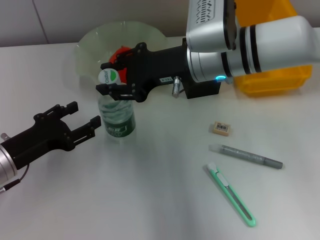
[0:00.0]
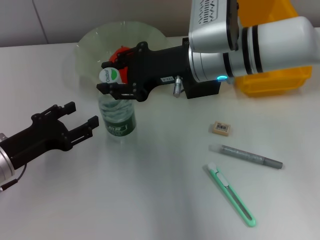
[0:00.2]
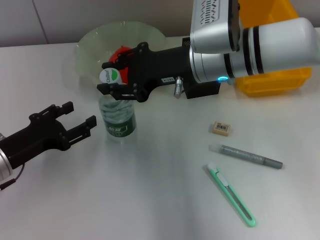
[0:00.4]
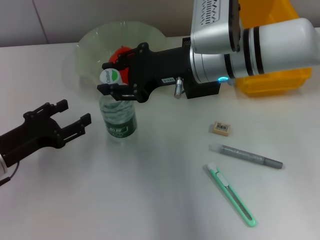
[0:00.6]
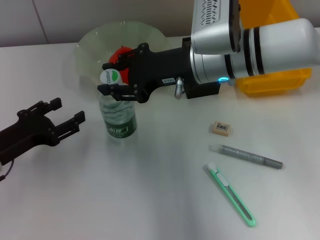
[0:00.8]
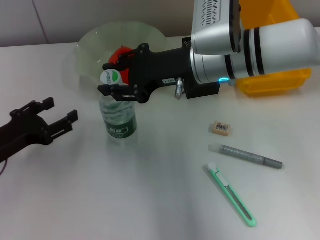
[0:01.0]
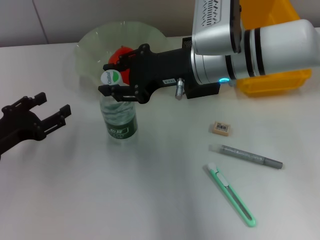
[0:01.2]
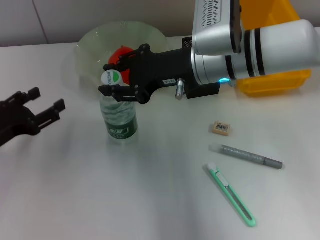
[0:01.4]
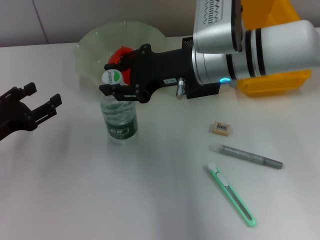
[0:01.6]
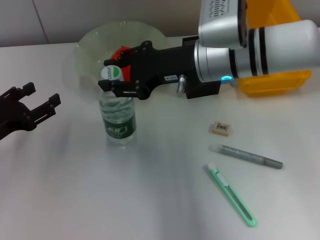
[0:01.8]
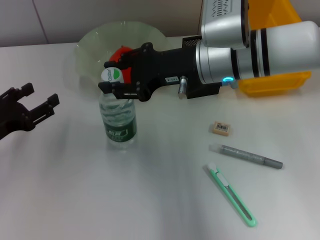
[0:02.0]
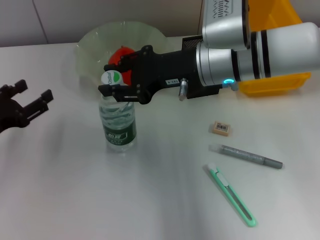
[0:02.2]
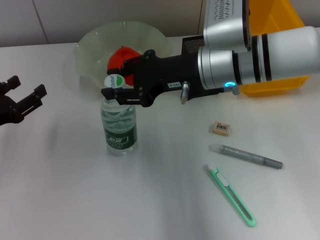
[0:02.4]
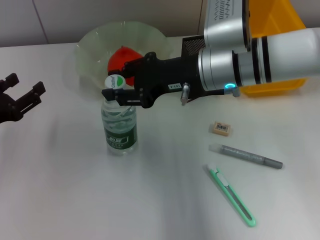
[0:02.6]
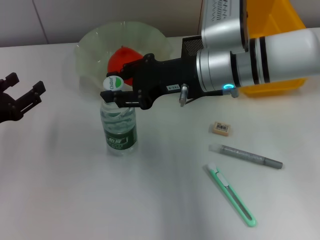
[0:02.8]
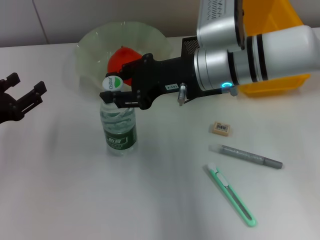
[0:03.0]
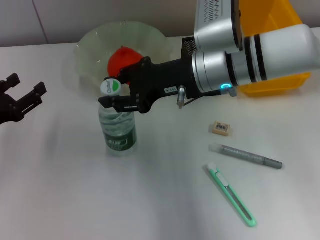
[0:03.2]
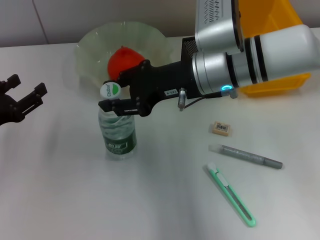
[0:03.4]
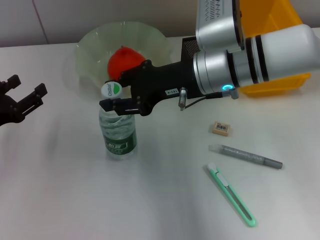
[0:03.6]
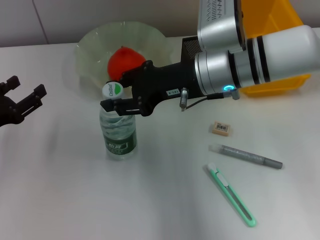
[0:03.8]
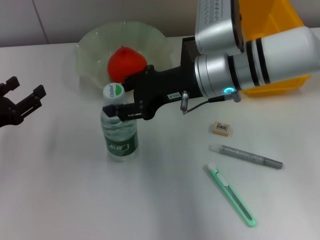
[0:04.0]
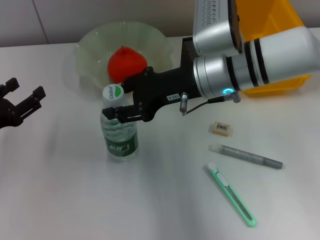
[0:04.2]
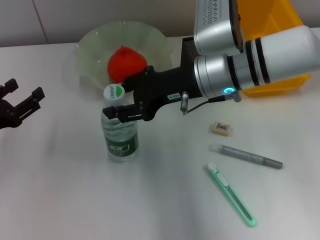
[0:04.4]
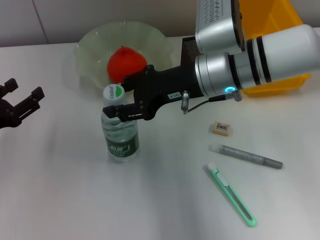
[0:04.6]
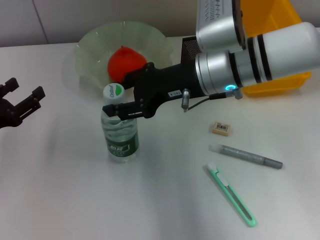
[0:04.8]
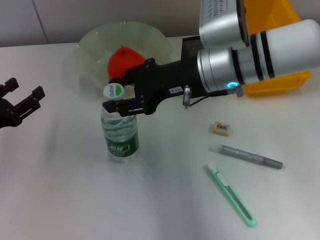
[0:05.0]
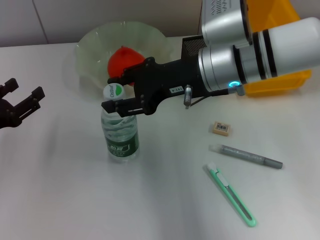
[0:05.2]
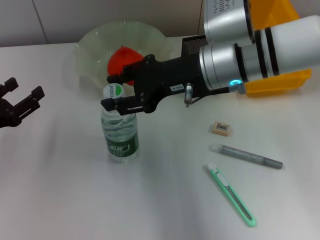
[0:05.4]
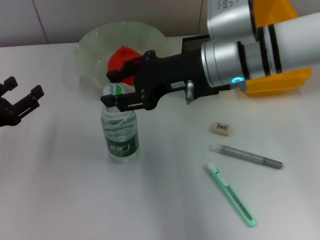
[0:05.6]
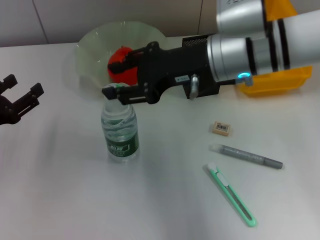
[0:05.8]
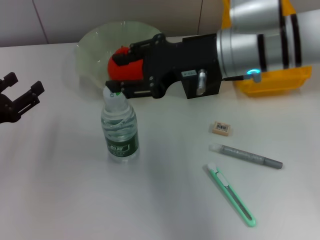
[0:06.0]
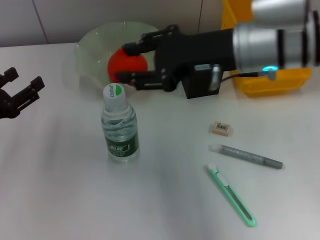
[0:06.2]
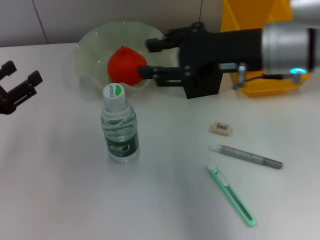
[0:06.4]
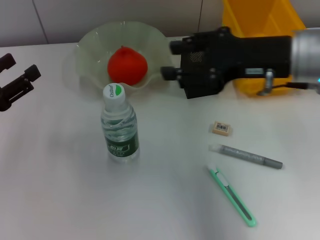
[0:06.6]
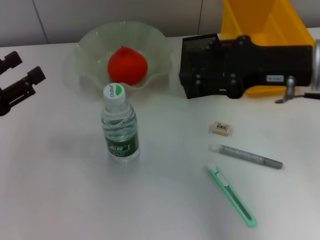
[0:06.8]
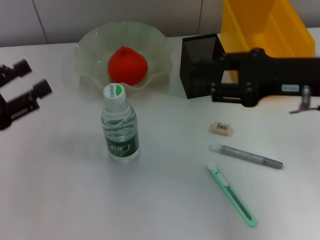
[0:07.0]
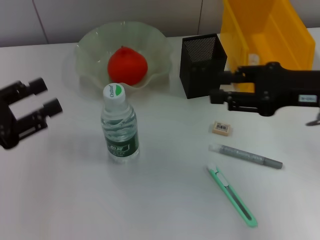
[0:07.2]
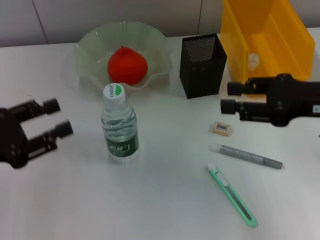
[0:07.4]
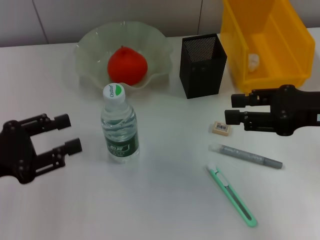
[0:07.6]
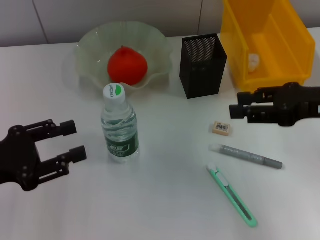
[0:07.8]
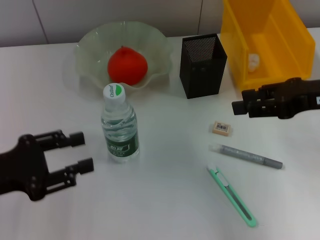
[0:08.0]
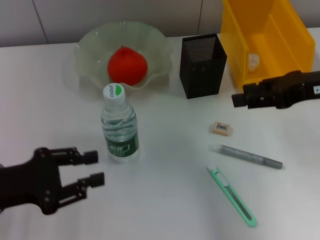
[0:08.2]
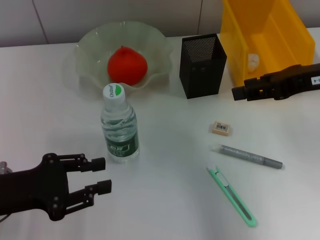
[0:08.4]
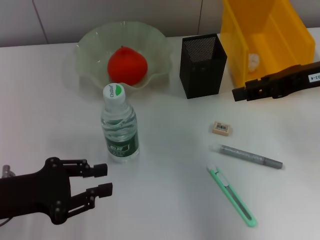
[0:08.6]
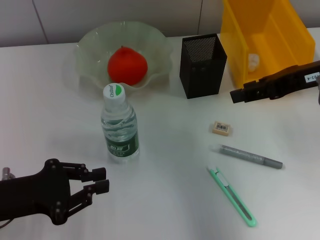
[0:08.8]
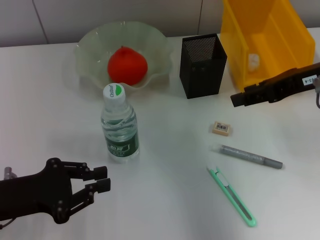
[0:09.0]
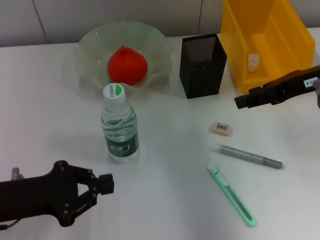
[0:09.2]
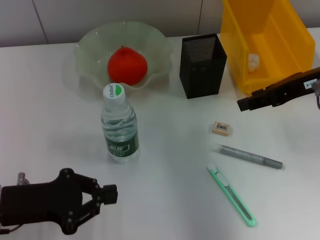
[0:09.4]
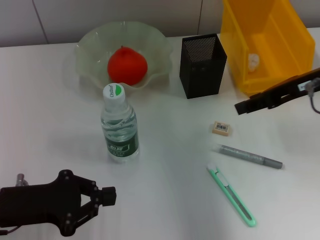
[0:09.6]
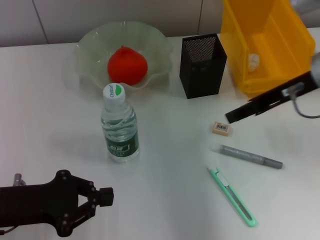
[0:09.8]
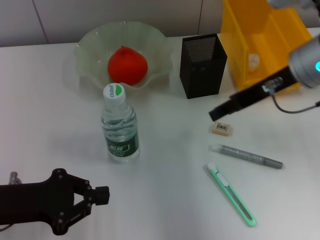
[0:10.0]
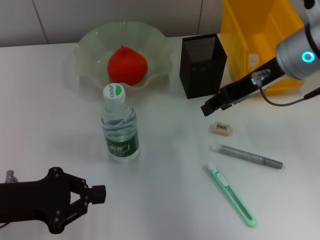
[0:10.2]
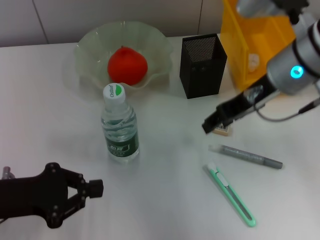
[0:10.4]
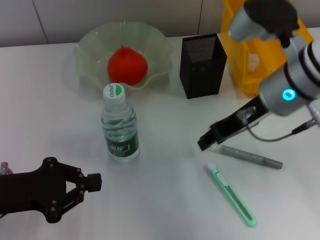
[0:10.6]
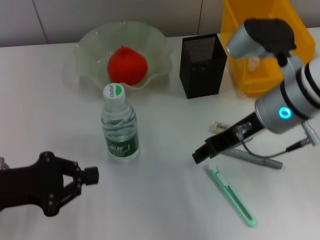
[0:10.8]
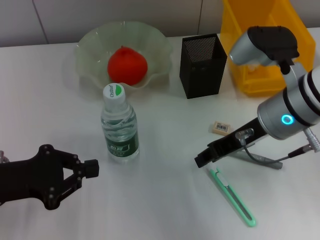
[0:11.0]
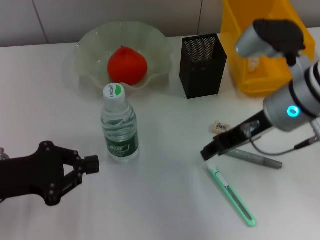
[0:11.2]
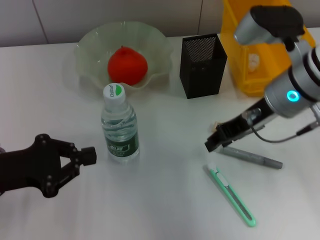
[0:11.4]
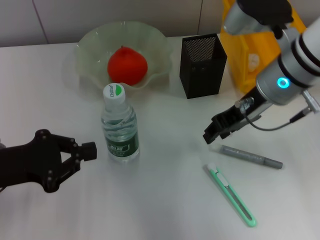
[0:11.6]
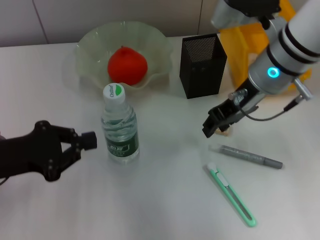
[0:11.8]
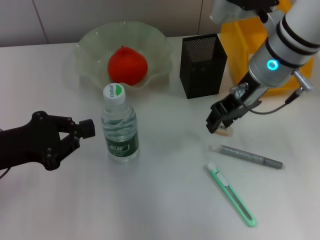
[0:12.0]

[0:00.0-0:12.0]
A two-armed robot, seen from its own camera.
Step, 0:00.2 to 0:05.4: Place the water bottle on the table with the right hand.
0:00.0 to 0:03.0: The grippers make only small movements.
0:03.0 to 0:04.4: Both grippers stay about where they are.
0:04.4 to 0:06.0: The right gripper changes place by about 5 cm.
0:06.0 to 0:07.6: The left gripper ends up about 5 cm from where it was; the right gripper moves to the right and backward, some 15 cm.
0:07.6 to 0:09.0: The right gripper is displaced forward by approximately 5 cm. Meanwhile the left gripper closes its fingers.
0:09.0 to 0:10.4: The right gripper travels to the left by approximately 10 cm.
0:10.4 to 0:12.0: The grippers move only a little.

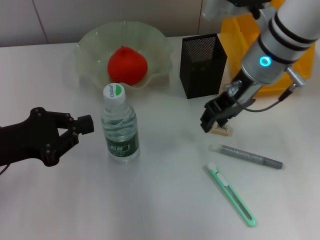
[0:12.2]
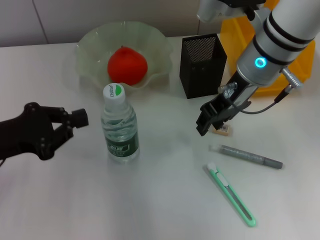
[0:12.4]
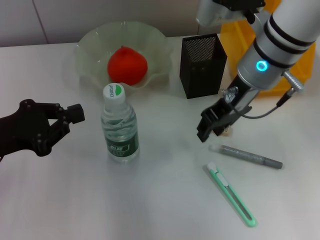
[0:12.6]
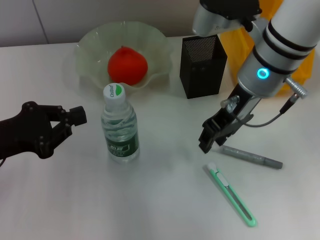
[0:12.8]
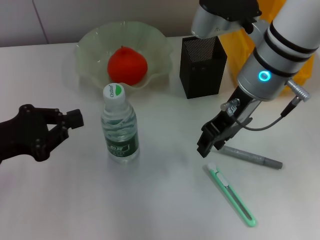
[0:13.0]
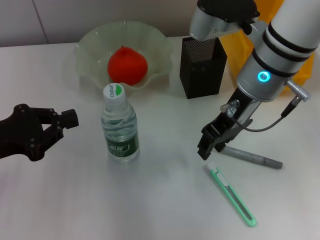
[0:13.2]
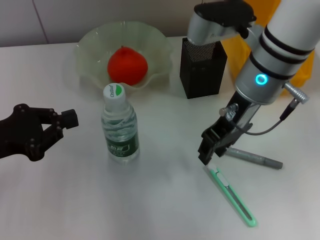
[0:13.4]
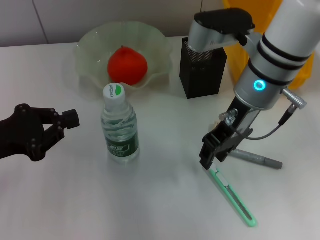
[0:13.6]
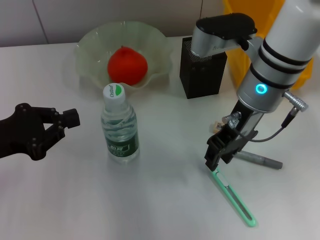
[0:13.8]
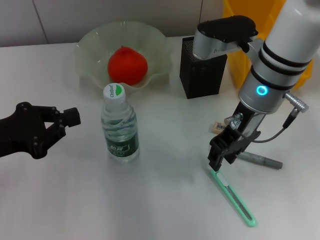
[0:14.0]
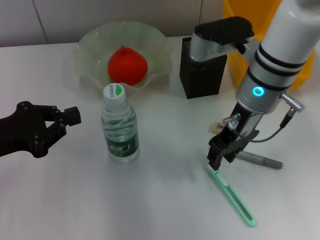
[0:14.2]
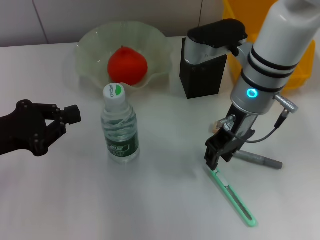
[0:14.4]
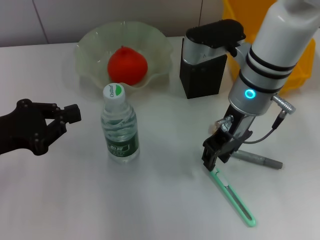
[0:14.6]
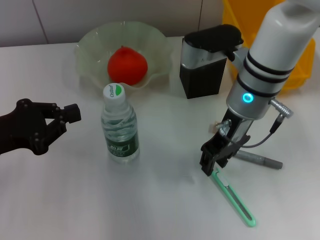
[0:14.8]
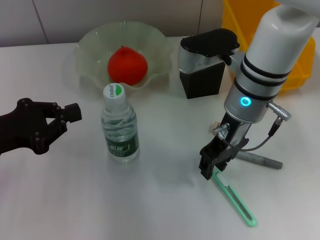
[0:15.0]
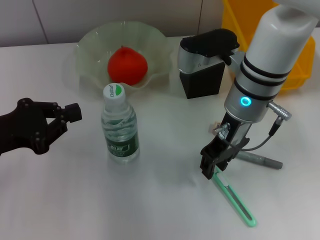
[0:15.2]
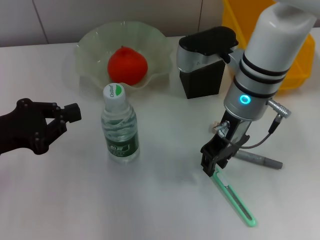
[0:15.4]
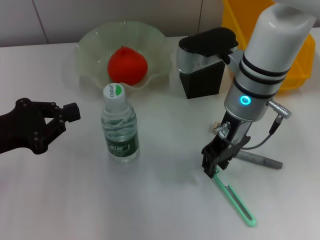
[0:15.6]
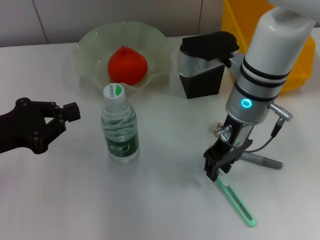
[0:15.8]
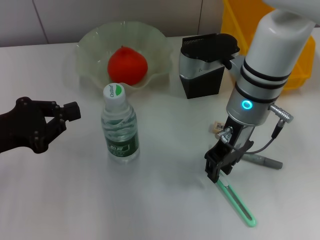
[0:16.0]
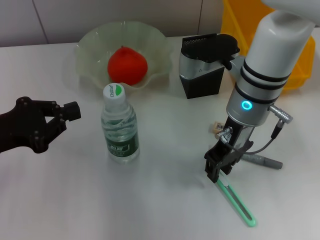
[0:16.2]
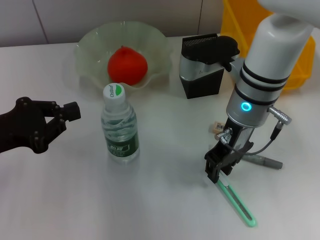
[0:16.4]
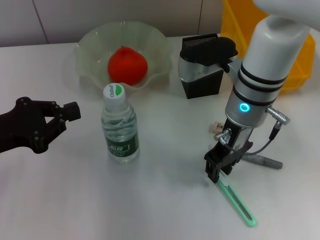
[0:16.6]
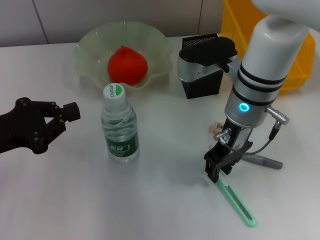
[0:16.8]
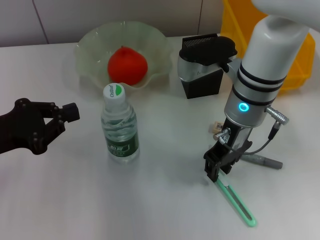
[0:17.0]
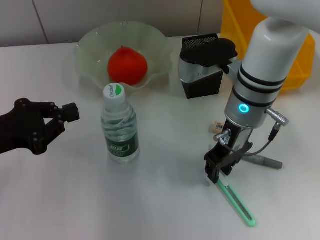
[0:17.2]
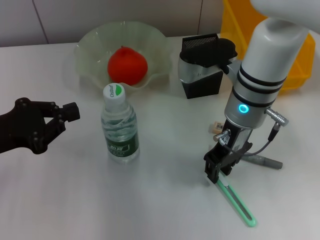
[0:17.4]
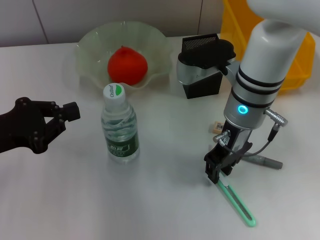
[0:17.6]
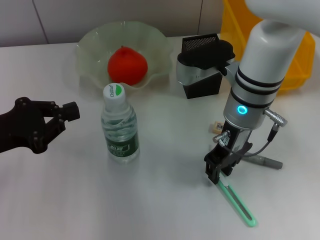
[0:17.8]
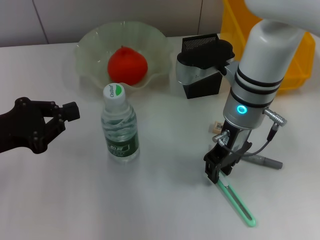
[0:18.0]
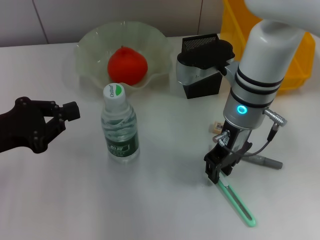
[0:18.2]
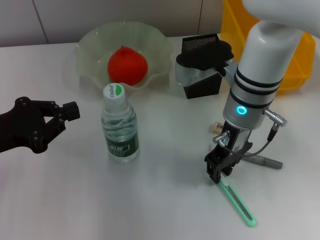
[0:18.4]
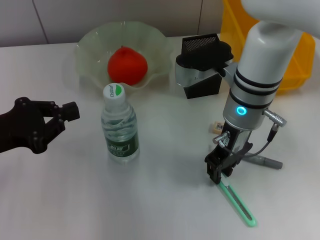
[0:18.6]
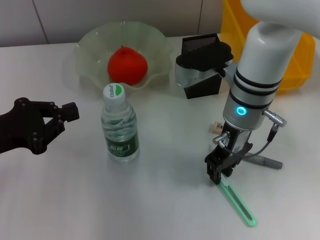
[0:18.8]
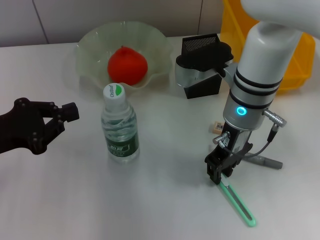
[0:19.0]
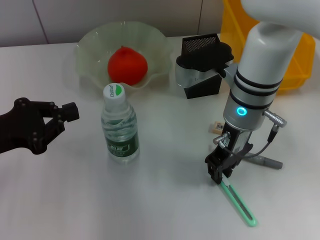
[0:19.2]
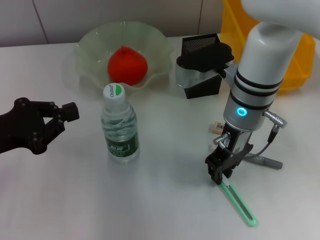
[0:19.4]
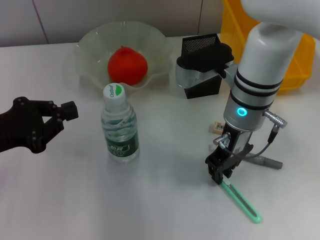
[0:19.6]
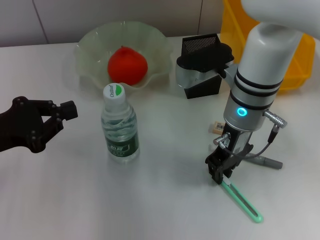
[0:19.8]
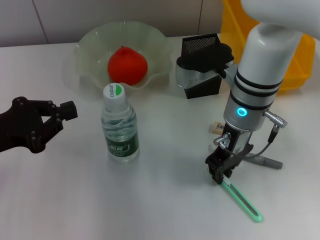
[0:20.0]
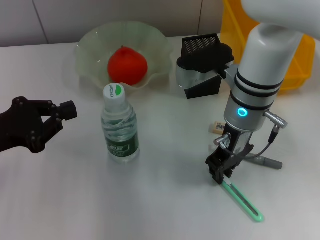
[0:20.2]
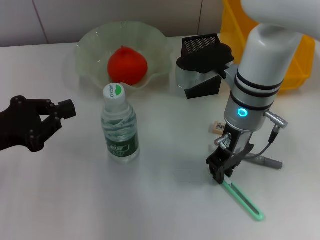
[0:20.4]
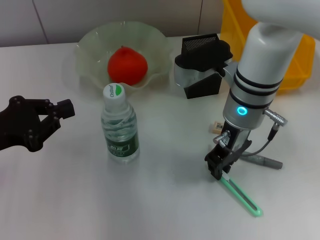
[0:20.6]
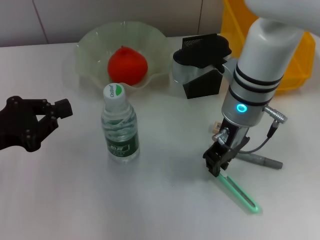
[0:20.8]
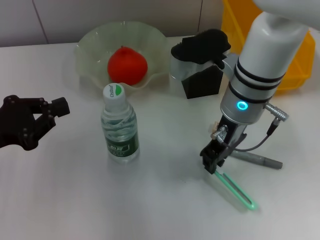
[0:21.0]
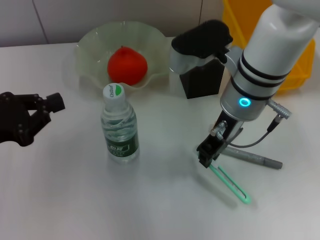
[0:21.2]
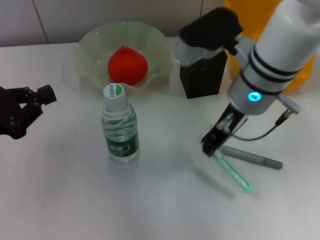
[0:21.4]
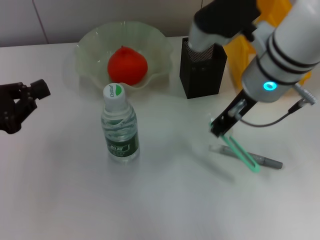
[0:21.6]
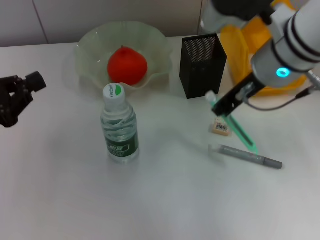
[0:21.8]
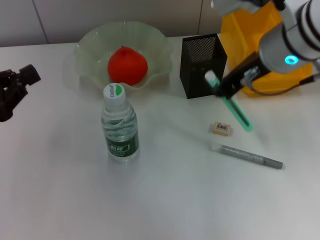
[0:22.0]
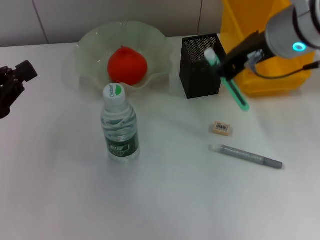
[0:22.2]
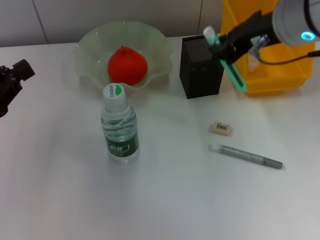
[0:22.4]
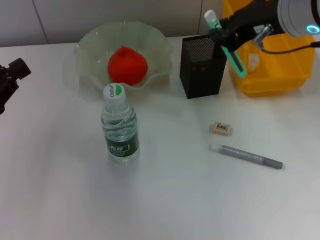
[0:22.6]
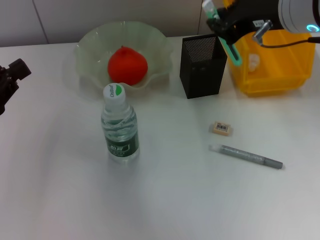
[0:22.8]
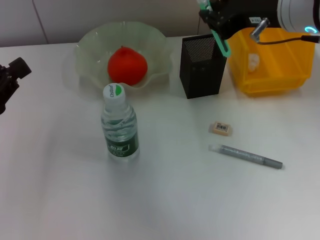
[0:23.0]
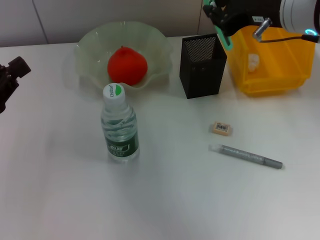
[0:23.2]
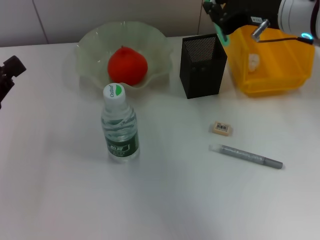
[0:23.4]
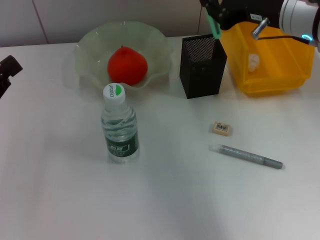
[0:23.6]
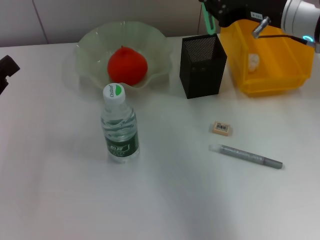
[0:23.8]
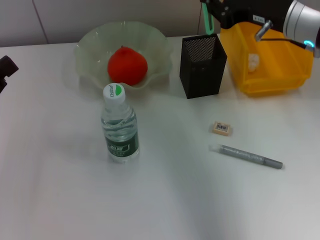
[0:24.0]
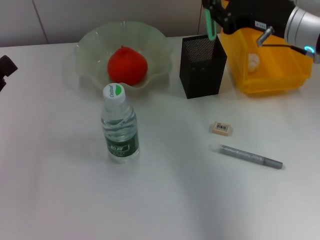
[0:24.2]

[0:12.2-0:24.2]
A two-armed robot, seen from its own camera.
Step, 0:12.2 to 0:19.8: Grab the blue utility knife with the right hand.
0:12.2 to 0:15.2: The grippers move only a little.
0:15.2 to 0:16.6: Both grippers stay about where they are.
0:16.6 to 0:19.8: Neither gripper changes place.
0:19.8 to 0:21.2: The grippers make only small movements.
0:21.2 to 0:22.6: The right gripper moves upward and to the right, roughly 10 cm.
0:22.6 to 0:24.2: The right gripper goes roughly 10 cm downward and to the right.
